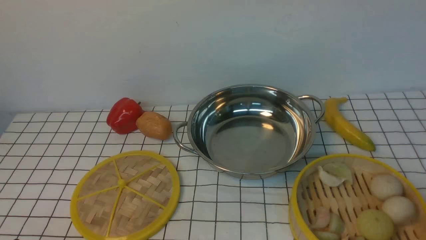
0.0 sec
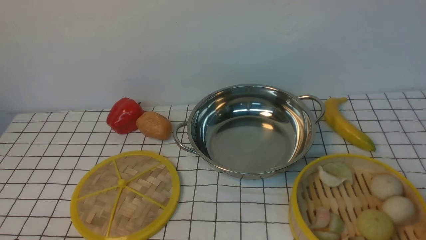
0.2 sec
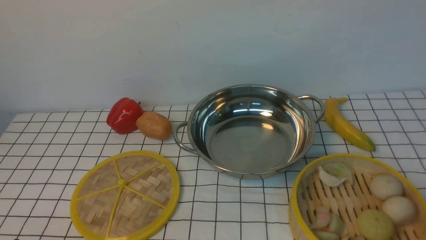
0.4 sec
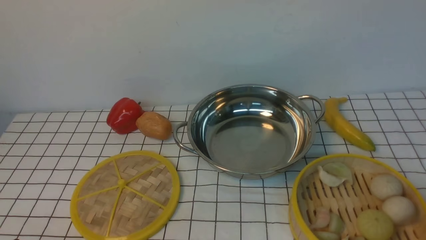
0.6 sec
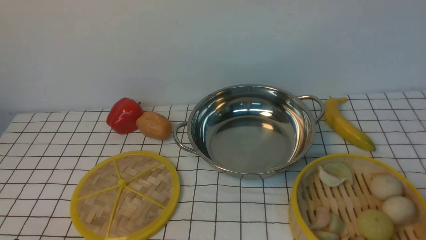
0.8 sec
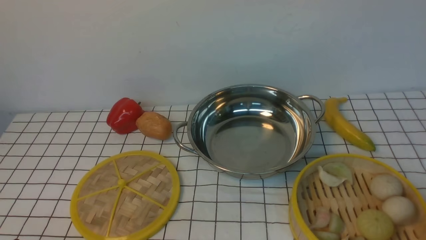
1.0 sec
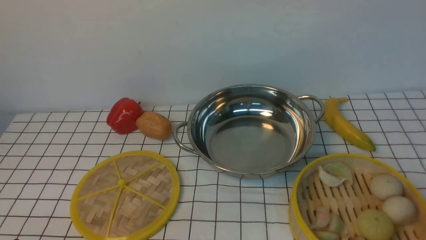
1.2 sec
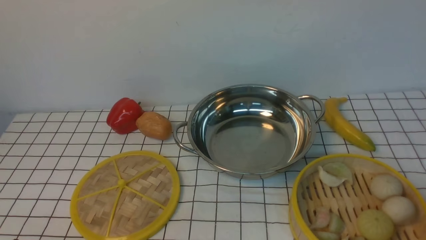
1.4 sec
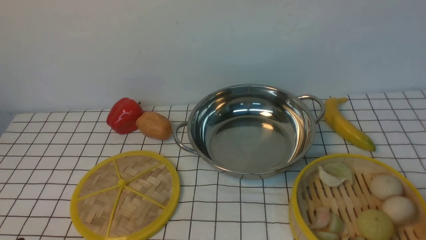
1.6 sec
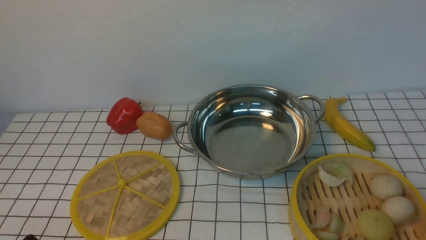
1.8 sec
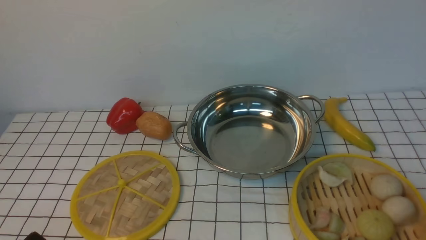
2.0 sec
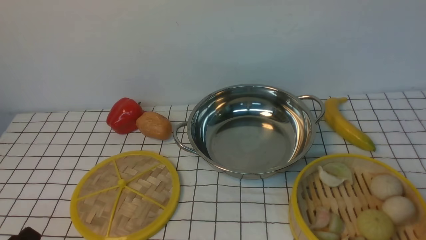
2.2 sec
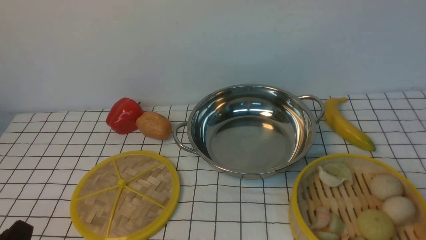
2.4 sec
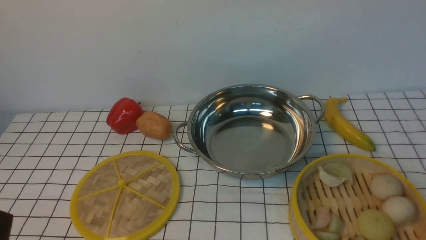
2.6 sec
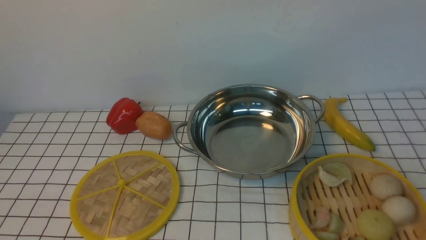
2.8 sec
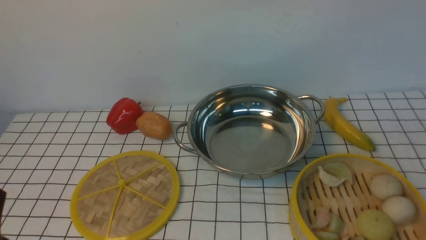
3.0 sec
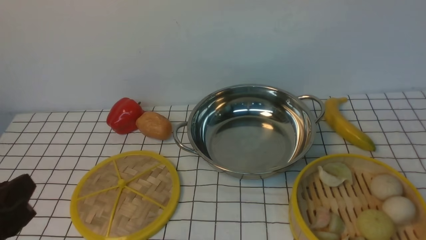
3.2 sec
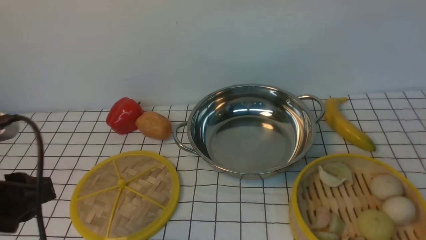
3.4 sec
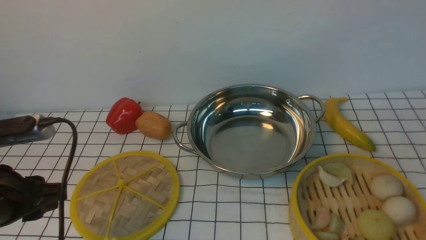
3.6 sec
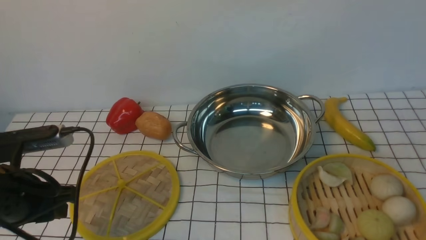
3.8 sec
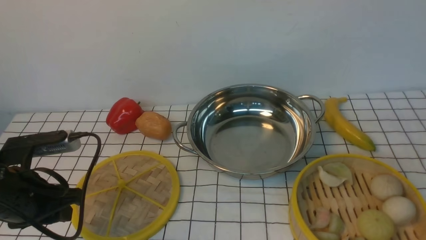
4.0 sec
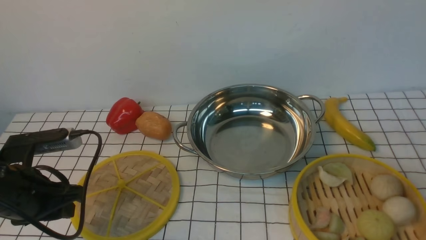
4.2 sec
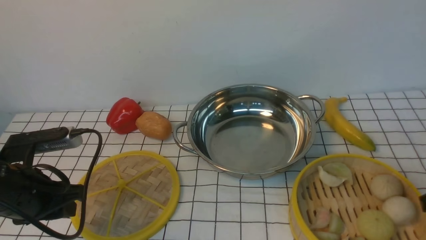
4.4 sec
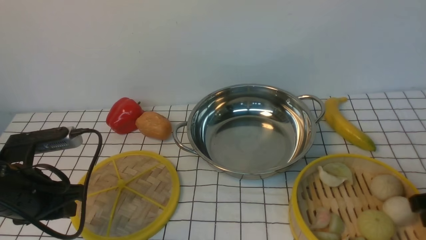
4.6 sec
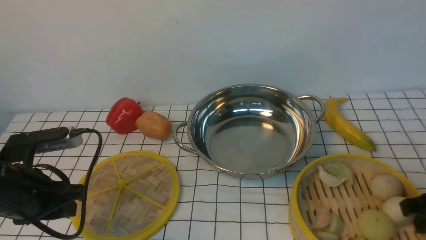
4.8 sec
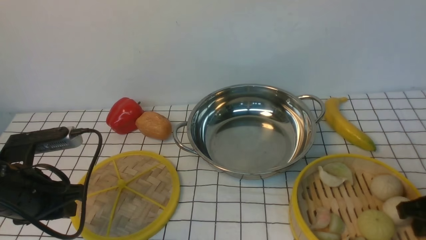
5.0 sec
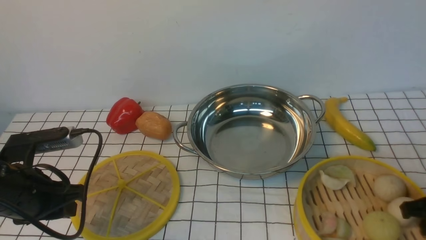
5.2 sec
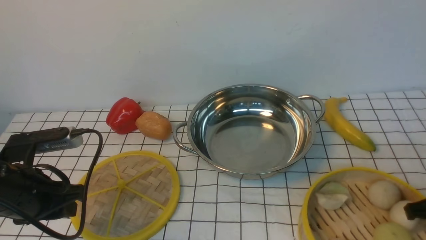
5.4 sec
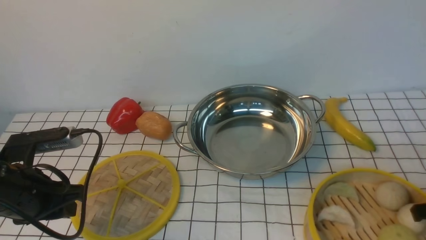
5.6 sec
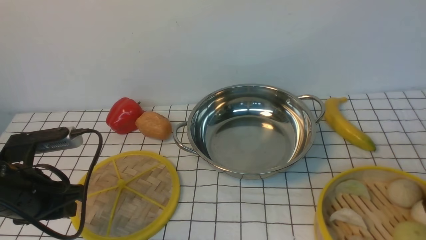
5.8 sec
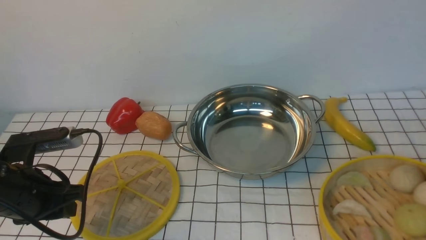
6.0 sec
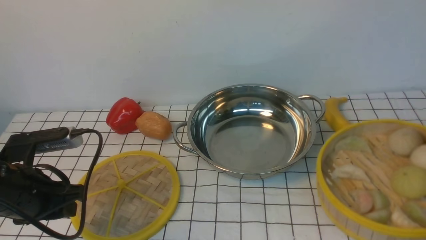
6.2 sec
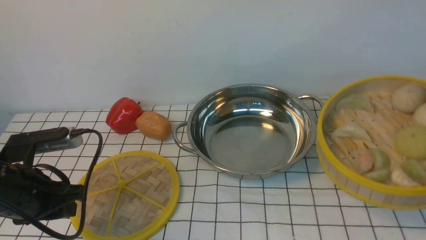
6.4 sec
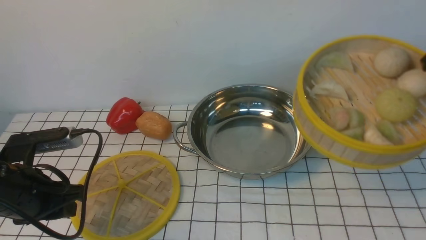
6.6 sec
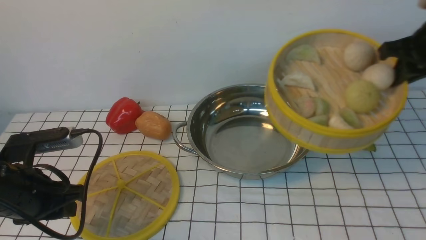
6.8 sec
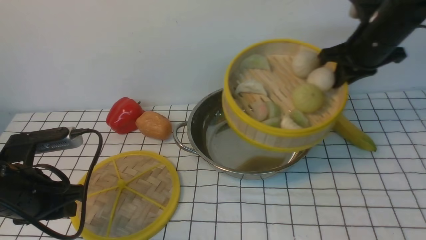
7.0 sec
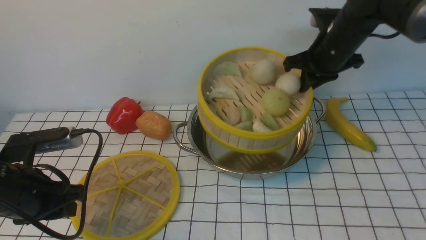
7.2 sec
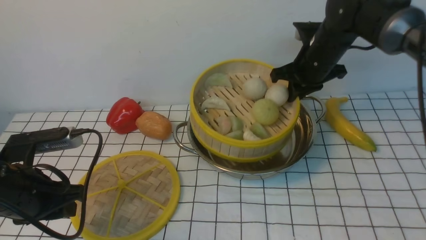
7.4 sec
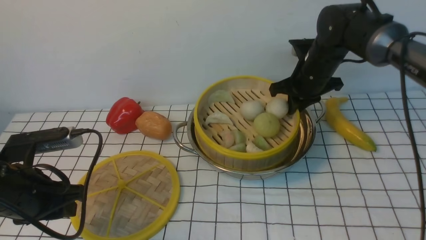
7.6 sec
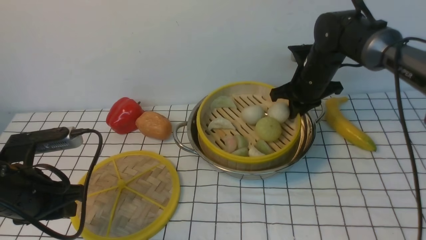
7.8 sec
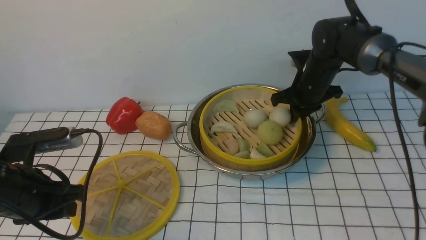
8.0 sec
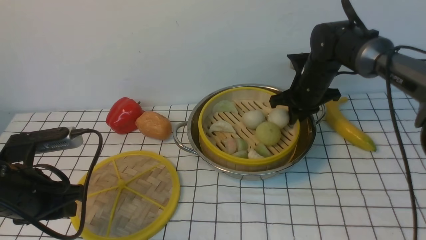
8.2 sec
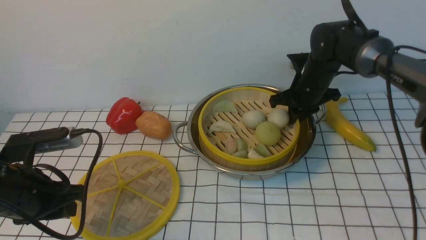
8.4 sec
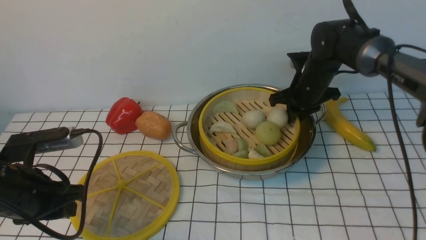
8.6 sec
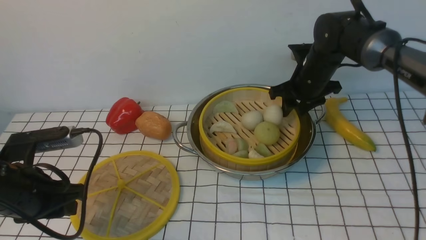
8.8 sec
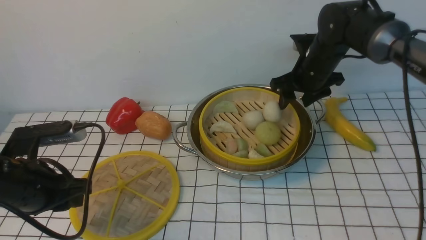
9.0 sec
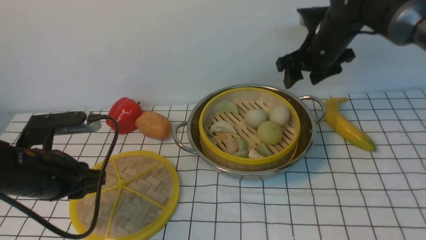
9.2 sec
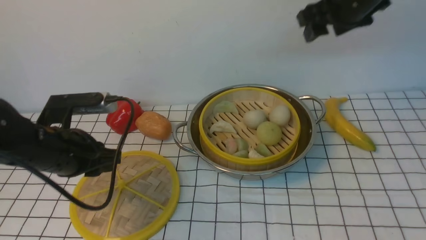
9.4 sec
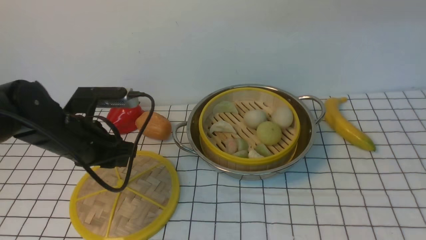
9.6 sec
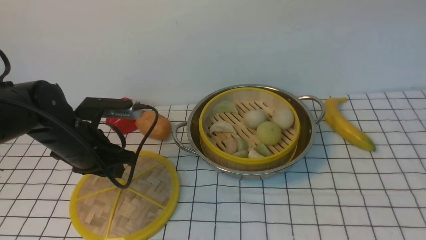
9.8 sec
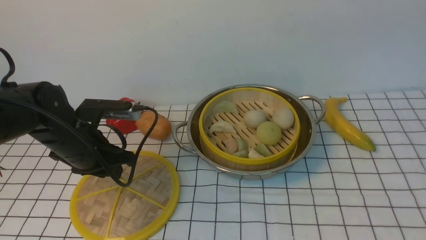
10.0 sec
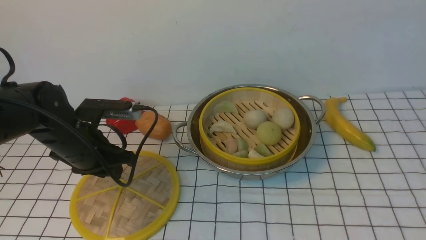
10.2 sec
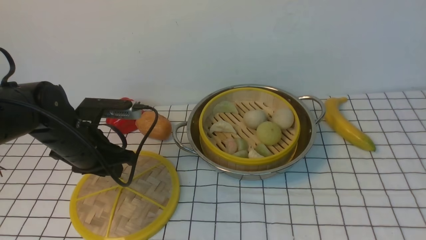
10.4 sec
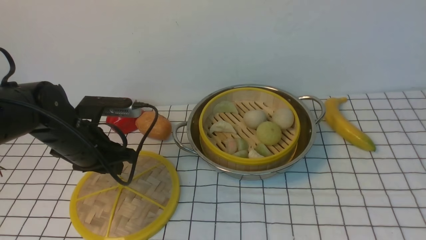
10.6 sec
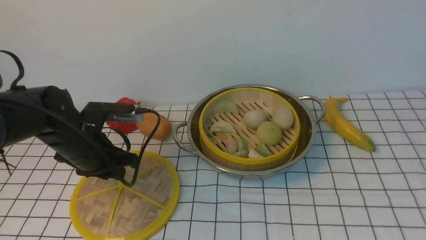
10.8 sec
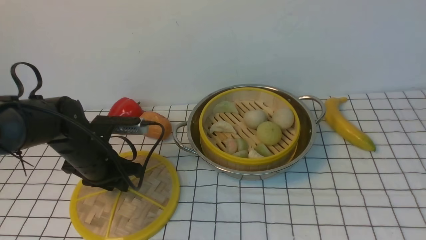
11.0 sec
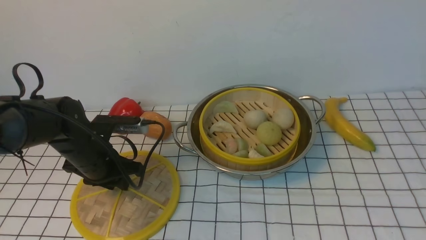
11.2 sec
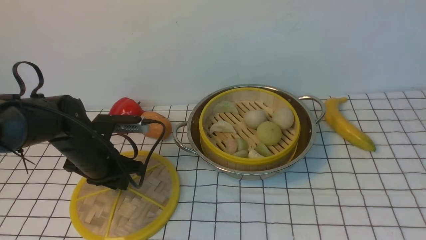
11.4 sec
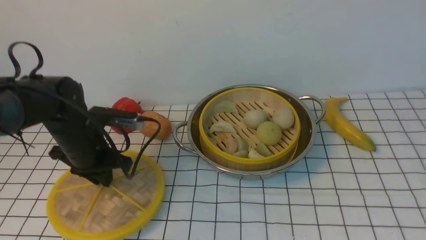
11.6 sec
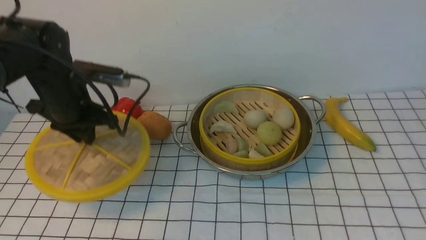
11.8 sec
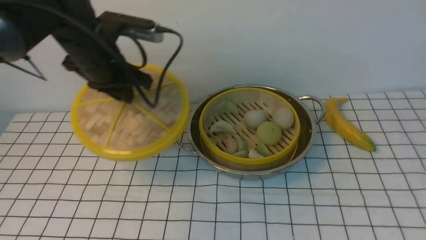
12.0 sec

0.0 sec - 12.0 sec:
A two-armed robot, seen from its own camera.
Task of the whole recording: place the steamer in the pot on the white tablecloth, and put the lid on the steamer.
Step, 0.0 sec - 6.0 sec: use the right arm to lift the steamer closest to it.
Step, 6.4 sec - 9.0 sec: use the right arm to put the steamer into the iron steamer pot in the middle.
Step, 9.2 sec - 11.6 sec: use the left arm to lift the lid of the steamer.
3.0 sec - 4.4 sec: The left gripper travels forward by some 15 cm.
4.4 sec - 6.0 sec: The right gripper goes some 5 cm forward, and closes up.
6.0 sec - 7.6 sec: The right gripper shifts about 30 cm forward and to the left.
7.6 sec - 9.0 sec: The right gripper opens up.
9.0 sec - 10.4 sec: The right gripper is displaced backward and upward by roughly 40 cm, and closes up. The left gripper is displaced forward by approximately 10 cm.
10.4 sec - 12.0 sec: The left gripper is displaced upward, forward and to the right by approximately 15 cm, and closes up.

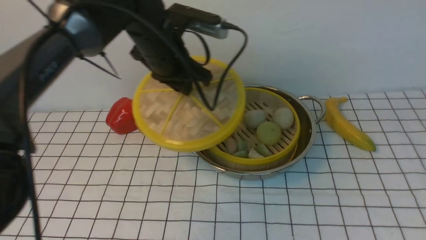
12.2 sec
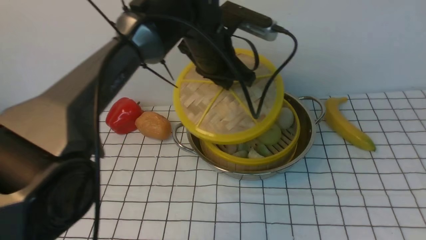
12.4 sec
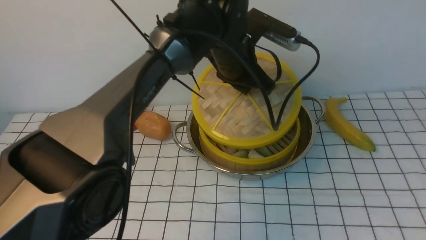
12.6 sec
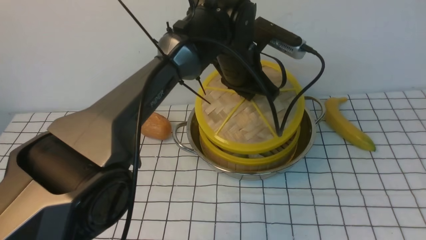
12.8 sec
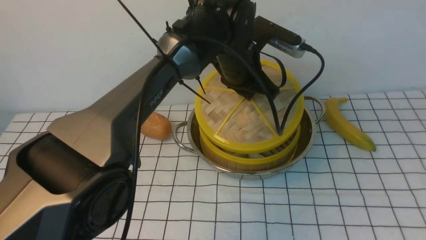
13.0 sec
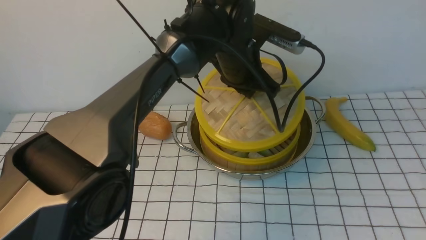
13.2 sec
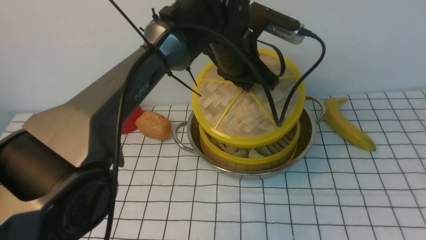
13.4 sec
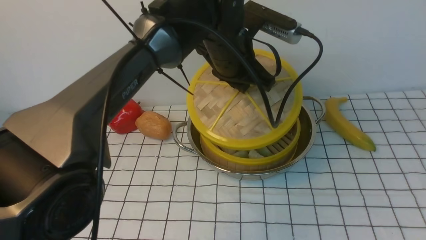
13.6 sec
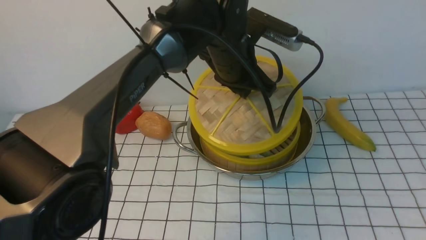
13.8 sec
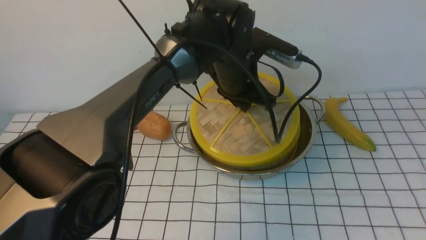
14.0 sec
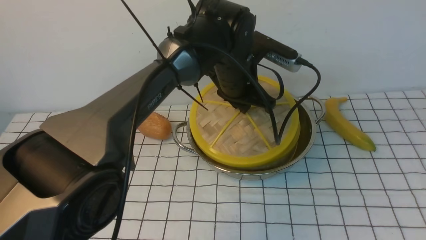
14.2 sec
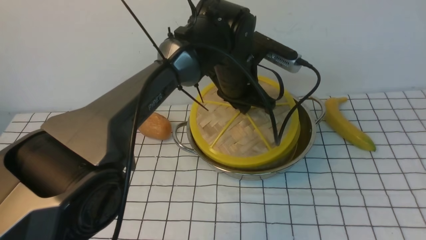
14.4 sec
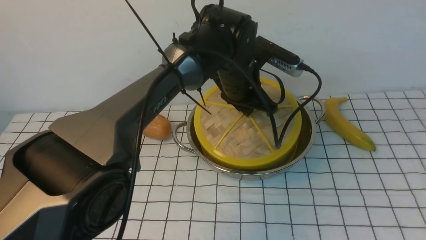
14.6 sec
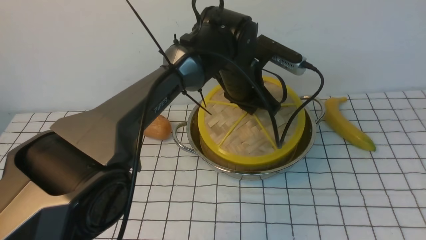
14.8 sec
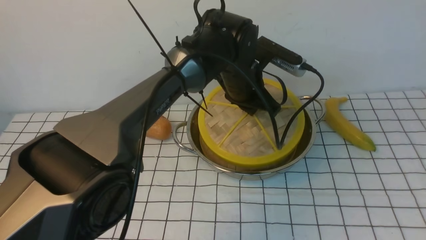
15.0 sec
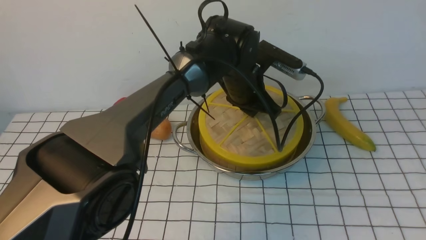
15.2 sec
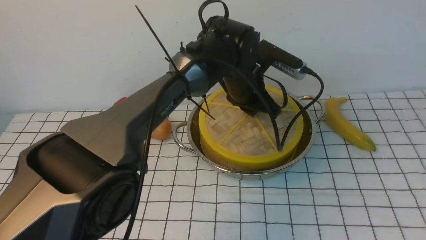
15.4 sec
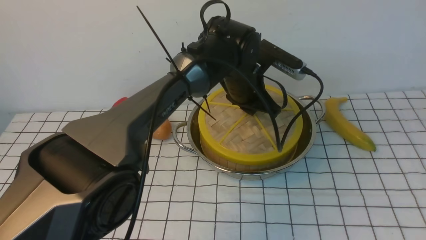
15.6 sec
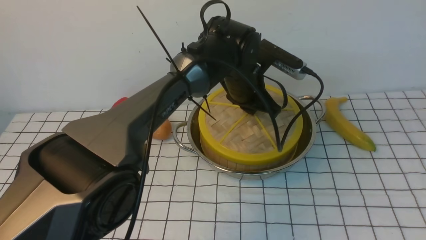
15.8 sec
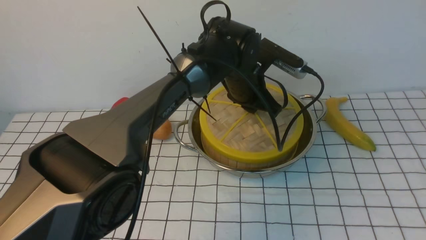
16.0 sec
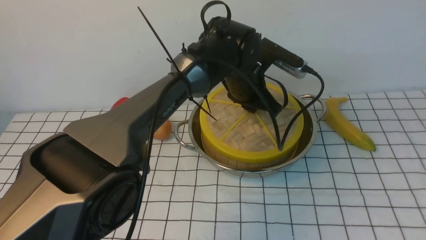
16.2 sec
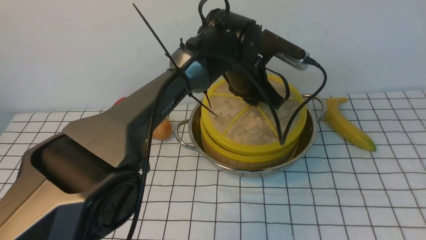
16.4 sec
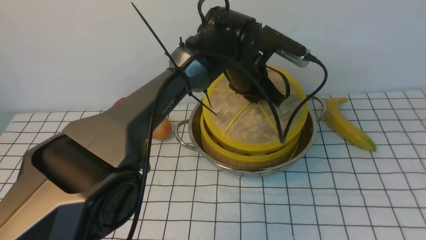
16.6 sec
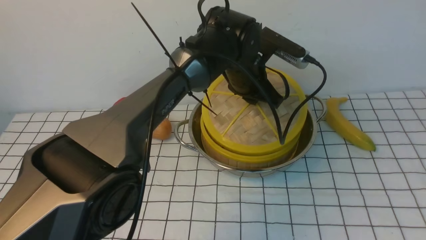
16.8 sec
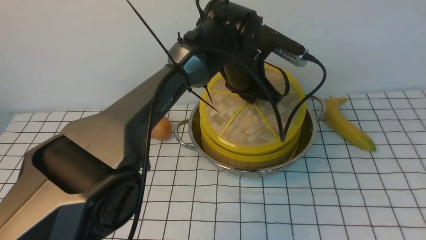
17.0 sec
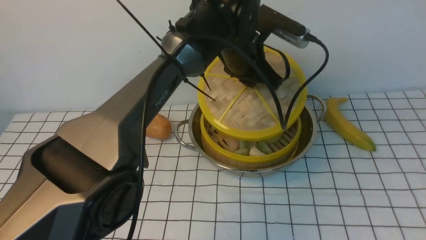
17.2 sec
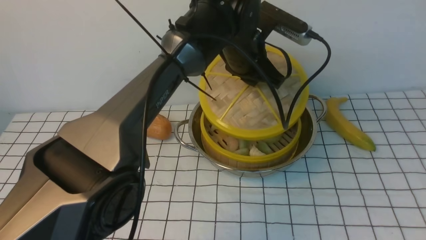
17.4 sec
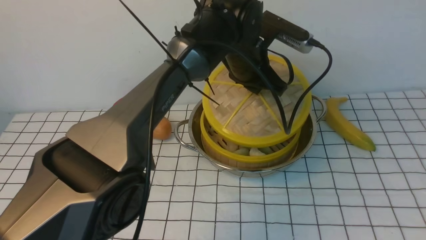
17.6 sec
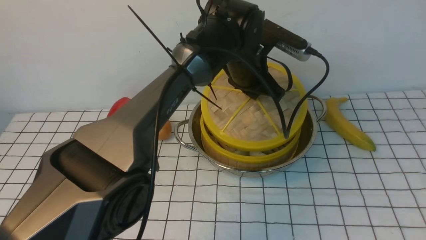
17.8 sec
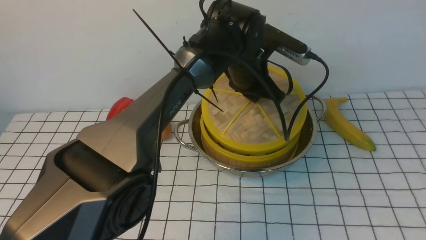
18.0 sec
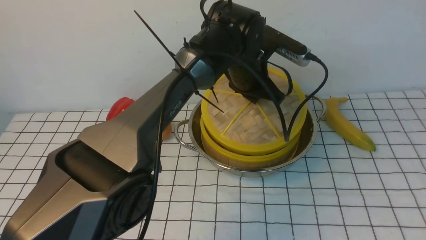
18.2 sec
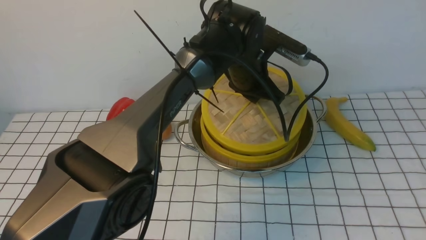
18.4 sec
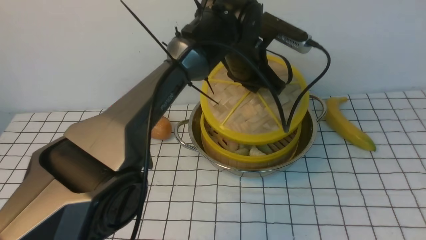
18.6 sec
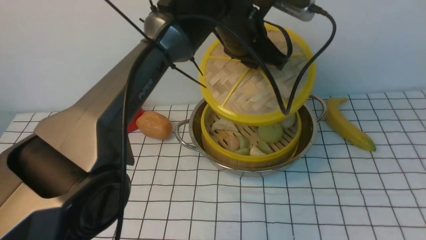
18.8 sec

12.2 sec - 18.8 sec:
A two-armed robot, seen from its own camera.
Task of the whole recording: place the steamer in the pot on the white tablecloth, and put the lid on the steamer.
12.2 sec - 13.8 sec: The left gripper shifts roughly 10 cm to the right.
13.8 sec - 15.4 sec: The left gripper goes about 5 cm downward.
